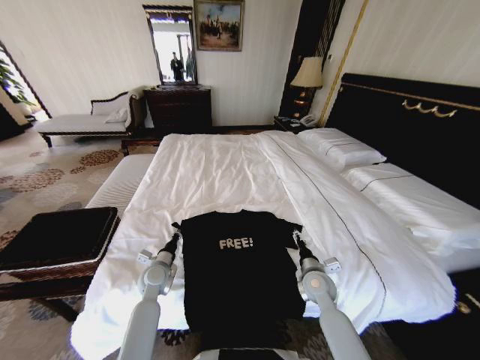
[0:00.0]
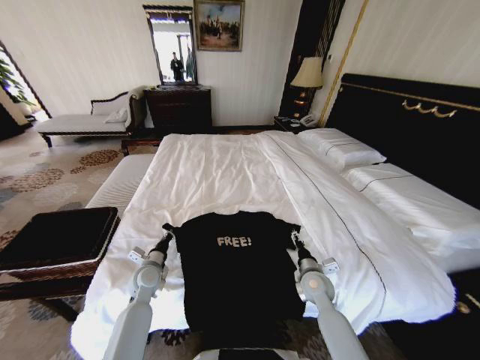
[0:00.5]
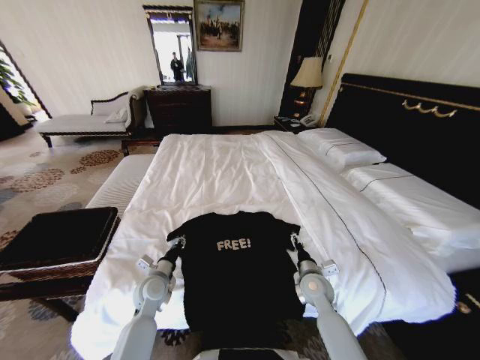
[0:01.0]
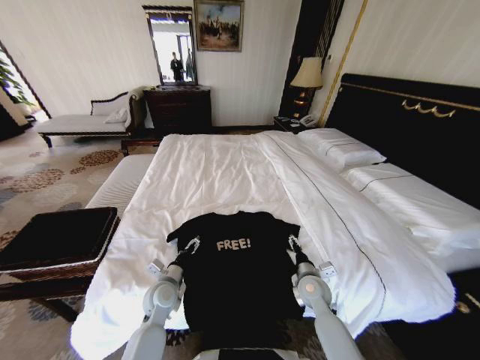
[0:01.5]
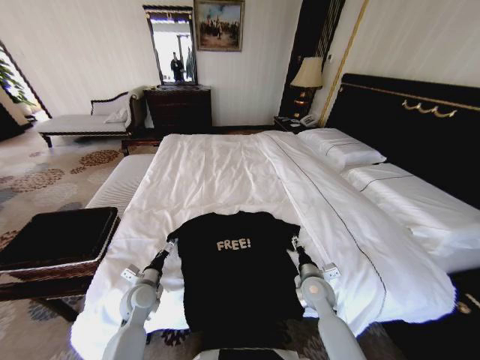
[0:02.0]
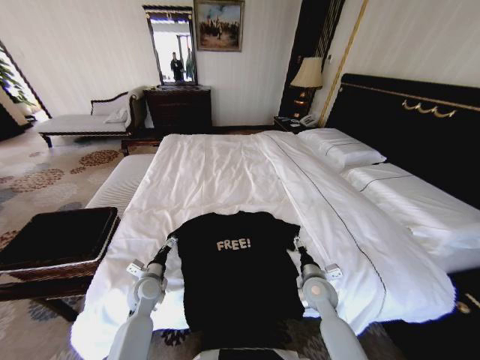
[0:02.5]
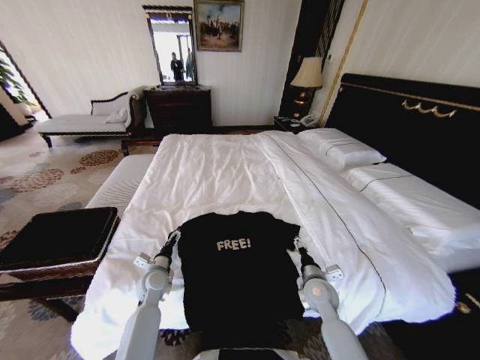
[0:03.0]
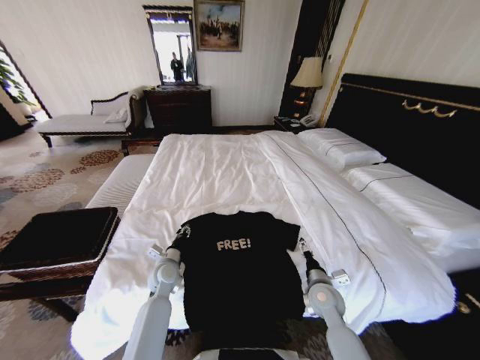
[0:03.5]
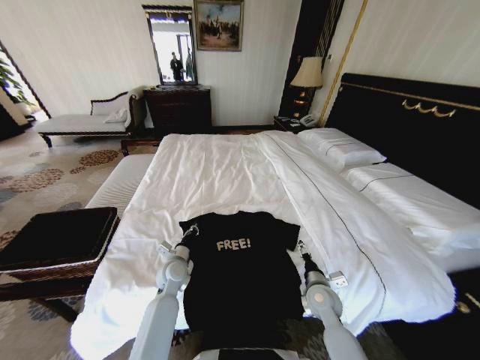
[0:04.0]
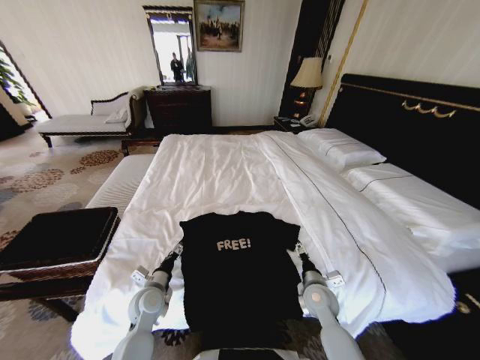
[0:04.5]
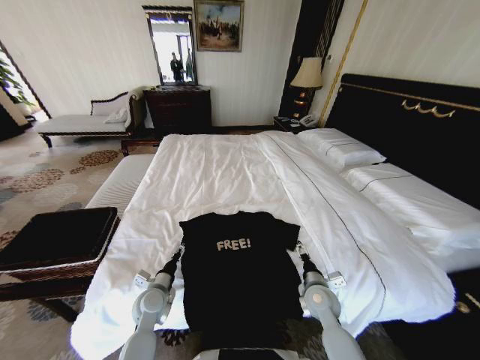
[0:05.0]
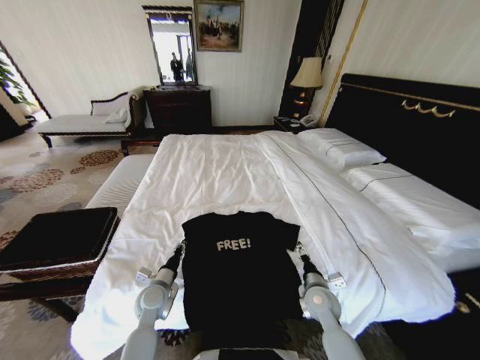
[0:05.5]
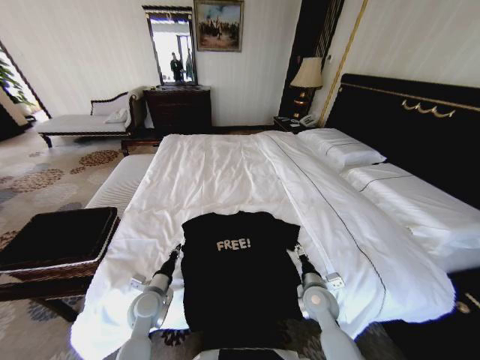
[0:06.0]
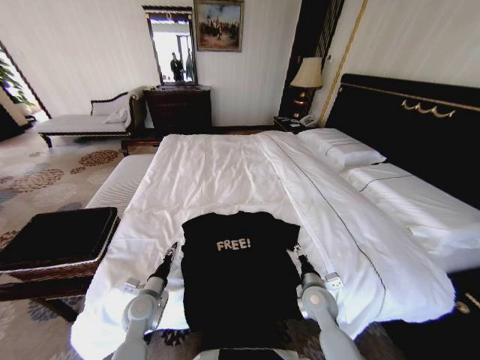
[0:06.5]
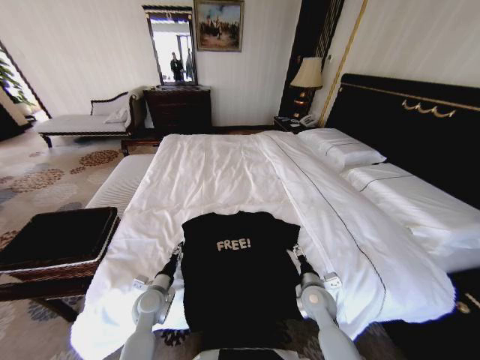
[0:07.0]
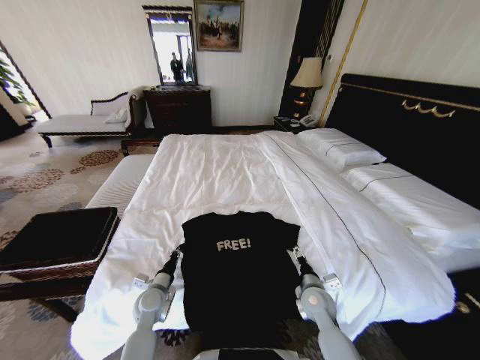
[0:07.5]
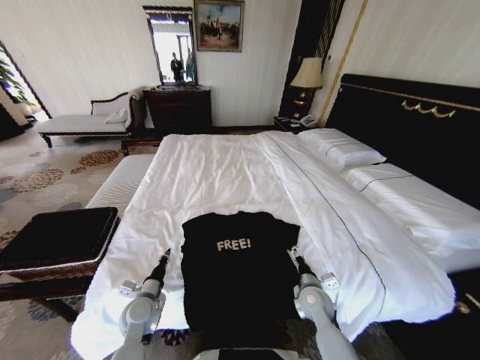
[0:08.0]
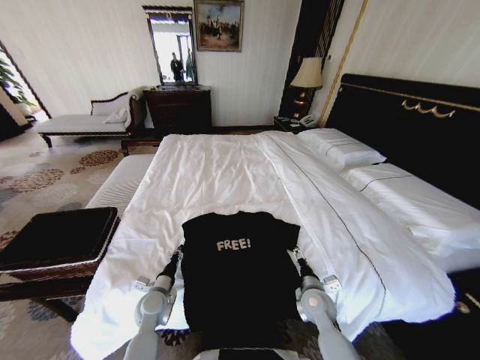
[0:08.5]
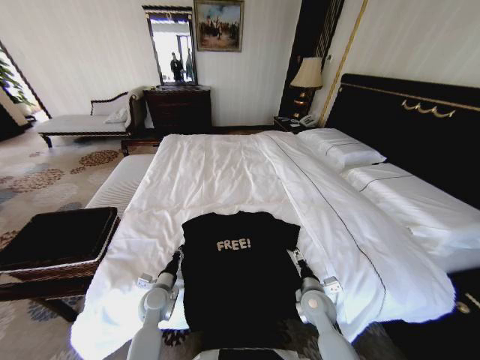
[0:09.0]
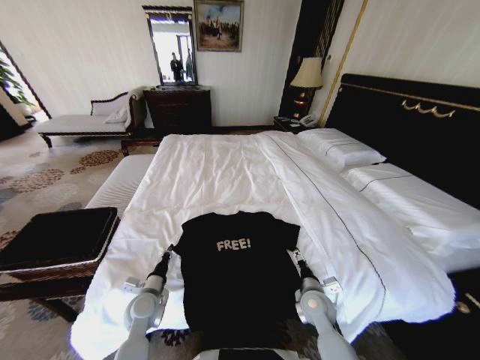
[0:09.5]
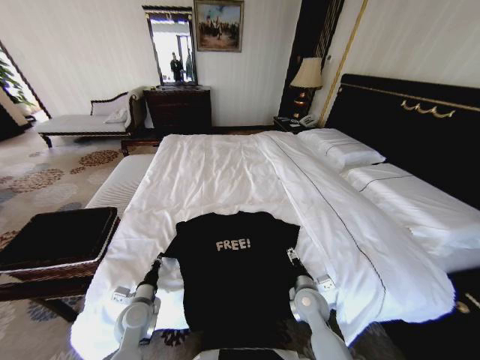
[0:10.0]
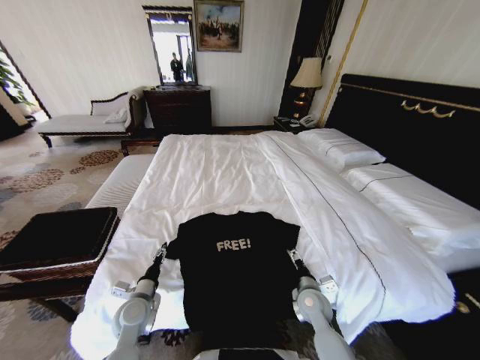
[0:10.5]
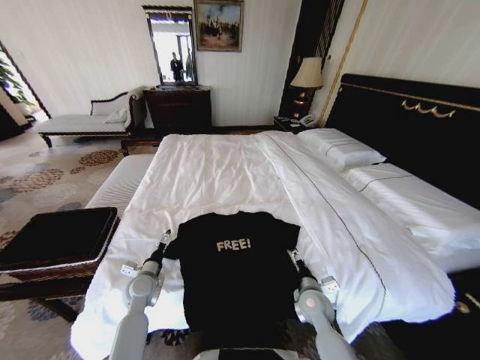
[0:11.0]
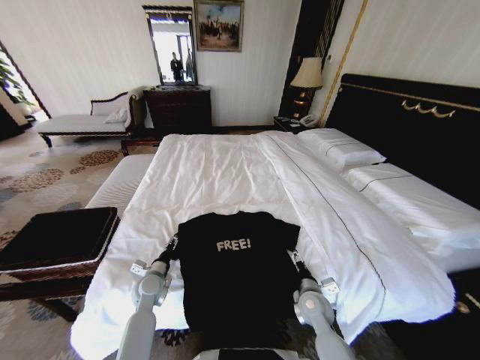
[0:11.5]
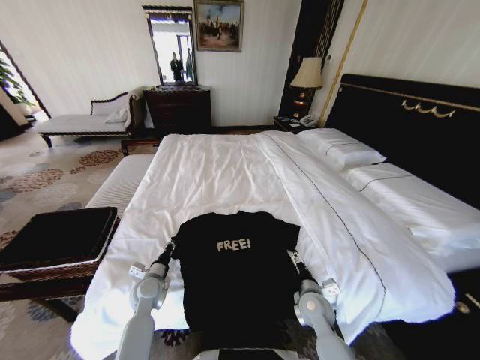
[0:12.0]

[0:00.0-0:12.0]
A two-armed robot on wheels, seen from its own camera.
Task of the whole recording: Fold the clothes on the bed and place them into the basket.
0:00.0 to 0:02.0: The left gripper is displaced backward by some 5 cm, and opens up.
0:02.0 to 0:04.0: The left gripper travels to the right and forward by approximately 10 cm, and closes.
0:04.0 to 0:06.0: The left gripper shifts about 10 cm backward and to the left, and opens, then closes once more.
0:06.0 to 0:08.0: The left gripper opens, then closes again.
0:08.0 to 0:10.0: There are only small adjustments of the grippers.
0:10.0 to 0:12.0: The left gripper travels forward by about 5 cm, and opens, then closes once more.

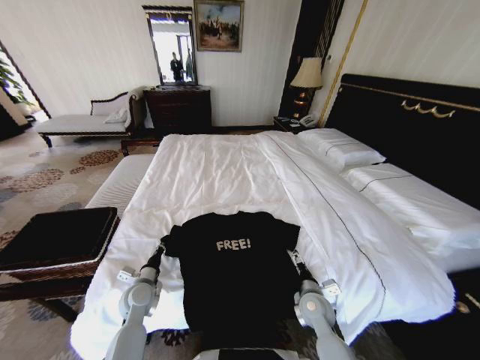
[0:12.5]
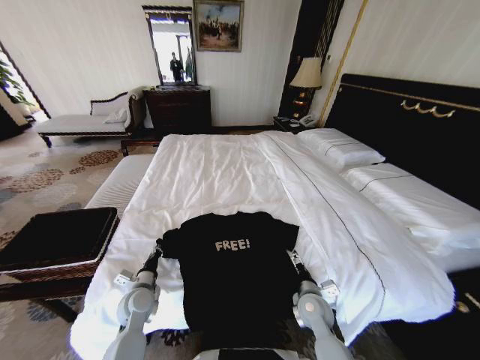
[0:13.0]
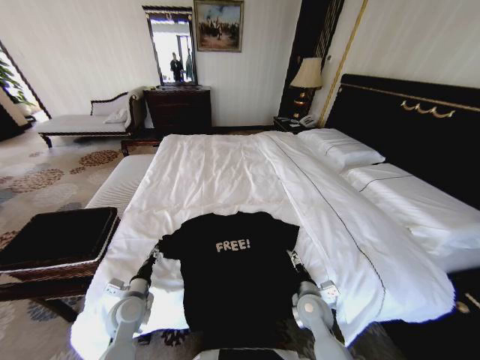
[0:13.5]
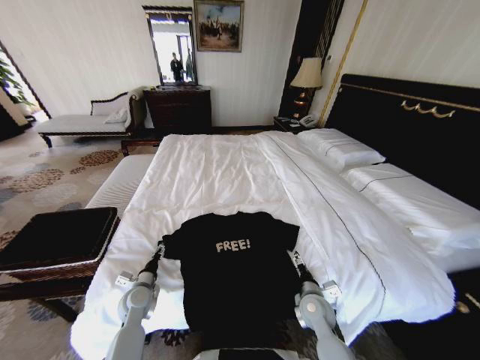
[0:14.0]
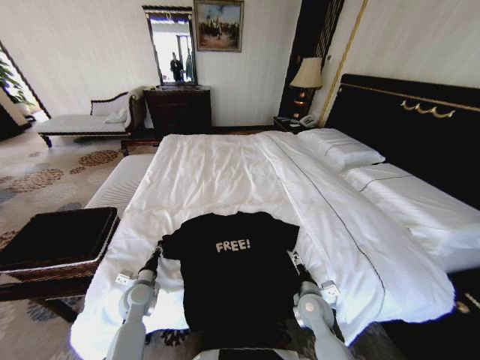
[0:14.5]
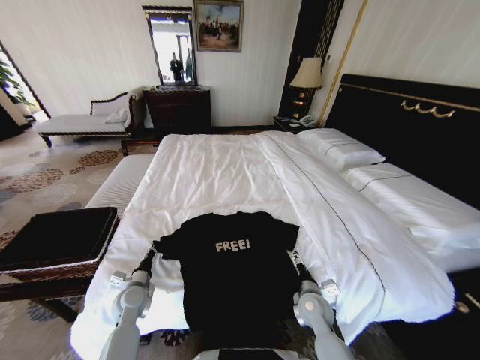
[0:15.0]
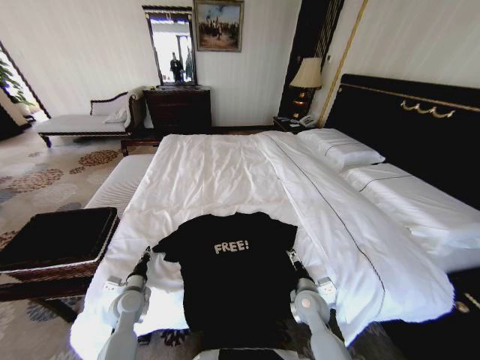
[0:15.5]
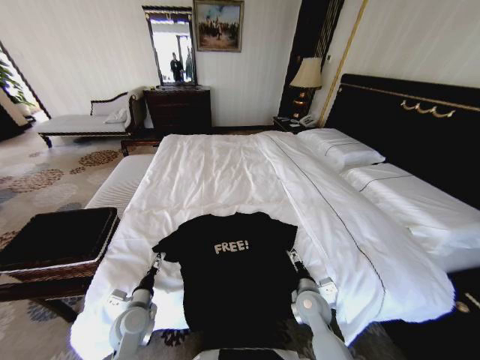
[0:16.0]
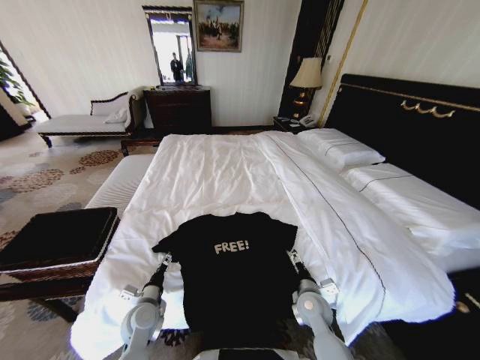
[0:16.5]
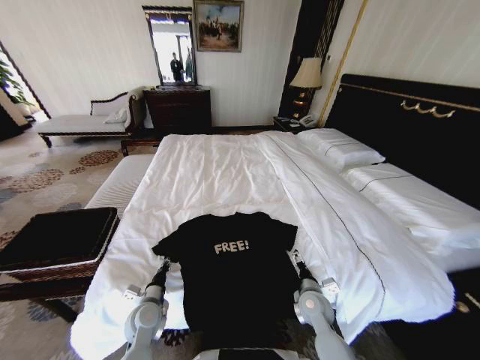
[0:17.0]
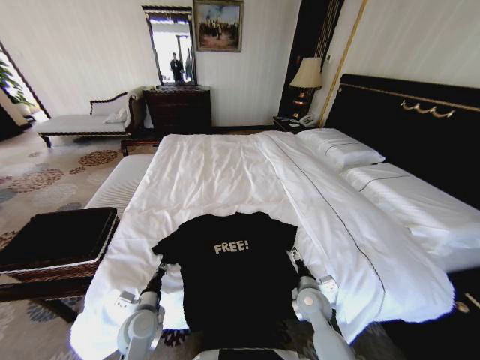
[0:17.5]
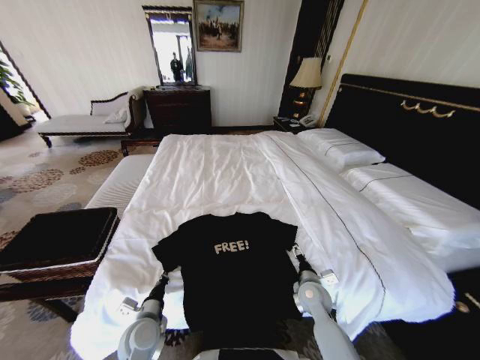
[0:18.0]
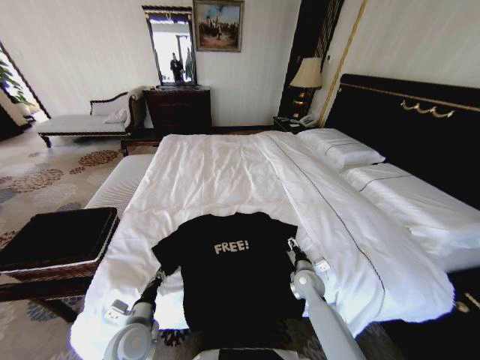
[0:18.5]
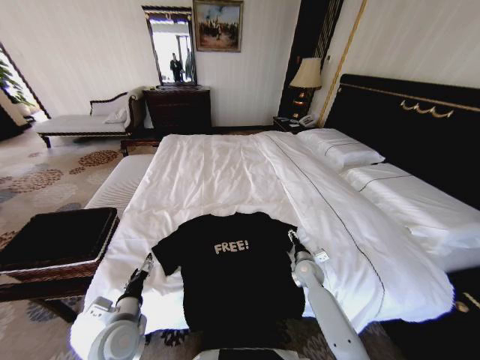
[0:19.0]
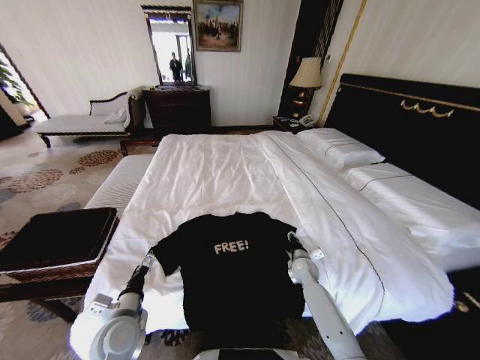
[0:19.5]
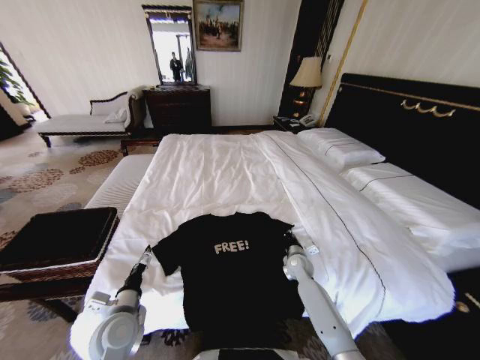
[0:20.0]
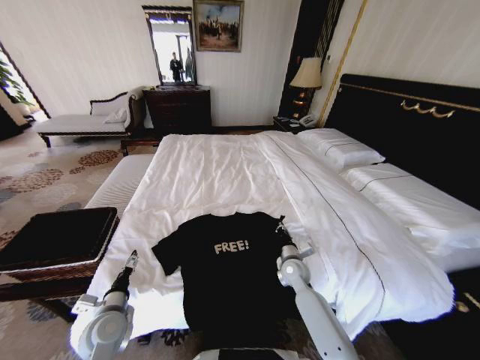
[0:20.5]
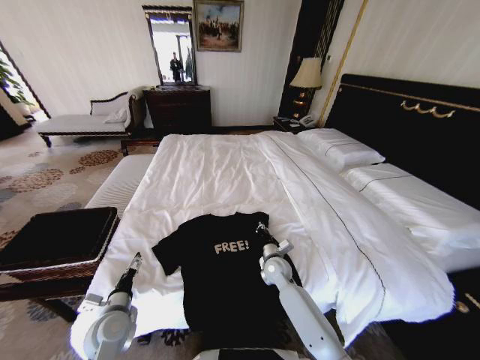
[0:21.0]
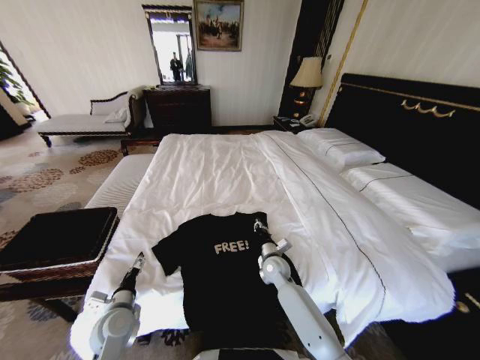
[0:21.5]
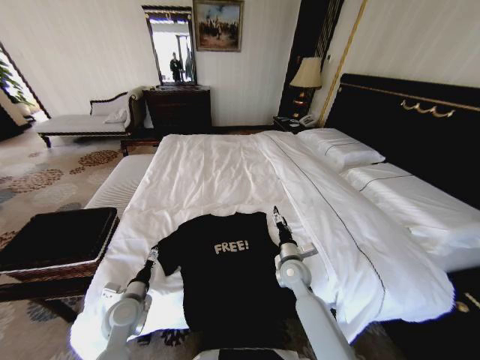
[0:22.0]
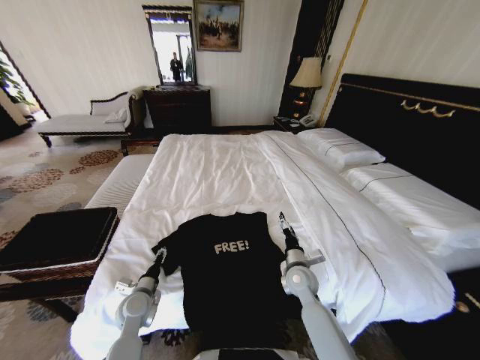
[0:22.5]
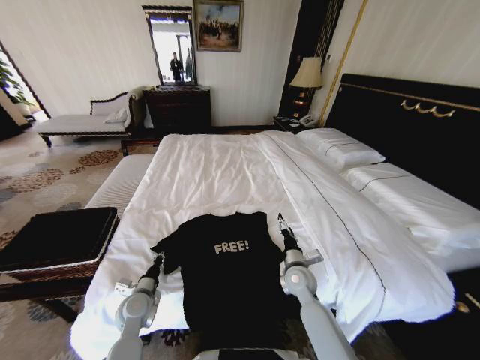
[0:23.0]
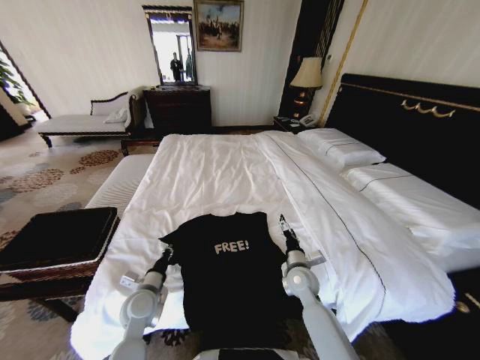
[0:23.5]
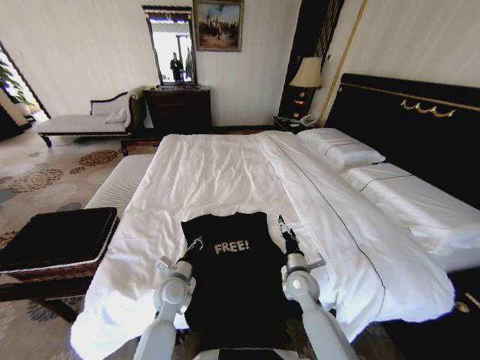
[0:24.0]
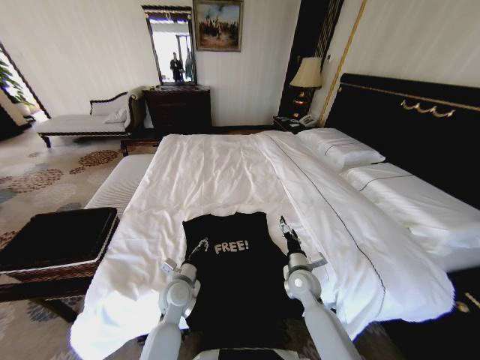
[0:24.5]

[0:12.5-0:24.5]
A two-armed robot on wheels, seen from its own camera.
Task of the whole recording: Fold the clothes on the bed and place them into the basket.
0:12.5 to 0:14.5: The left gripper opens, then closes once more.
0:14.5 to 0:16.5: The left gripper shifts some 5 cm backward, and opens.
0:16.5 to 0:18.5: The left gripper moves backward, roughly 5 cm, and closes its fingers. Meanwhile the right gripper shifts about 5 cm forward.
0:18.5 to 0:20.5: The right gripper ends up some 5 cm from where it was, and closes up; the left gripper heads to the left, covering approximately 5 cm, and opens up.
0:20.5 to 0:22.5: The left gripper moves forward, about 5 cm. The right gripper moves approximately 5 cm, and opens its fingers.
0:22.5 to 0:24.5: The left gripper shifts about 10 cm to the right, and closes its fingers.

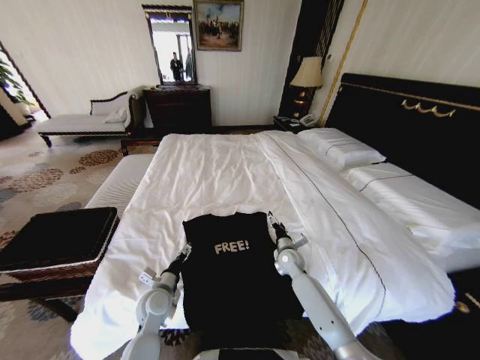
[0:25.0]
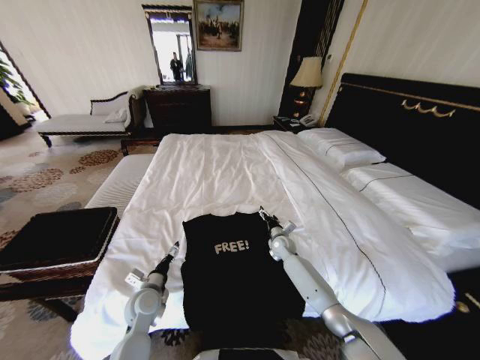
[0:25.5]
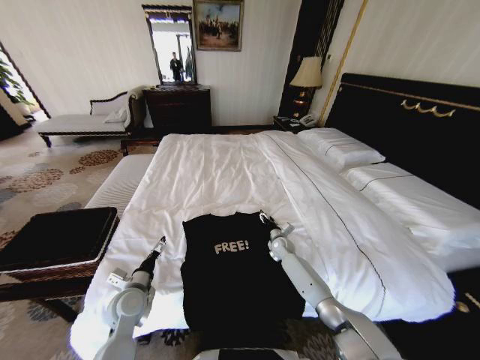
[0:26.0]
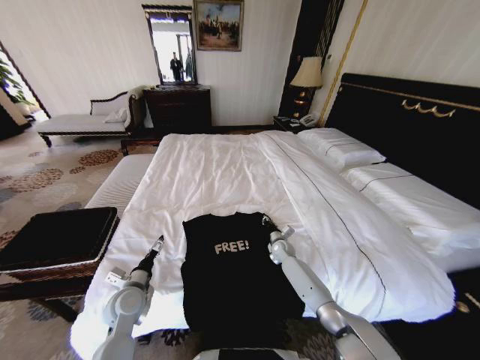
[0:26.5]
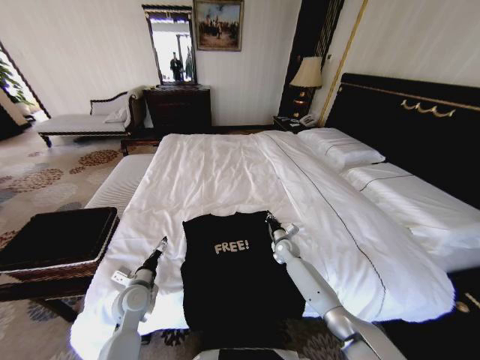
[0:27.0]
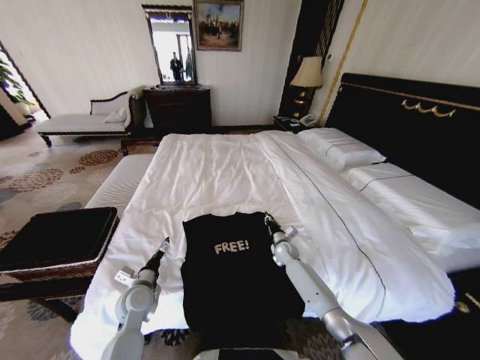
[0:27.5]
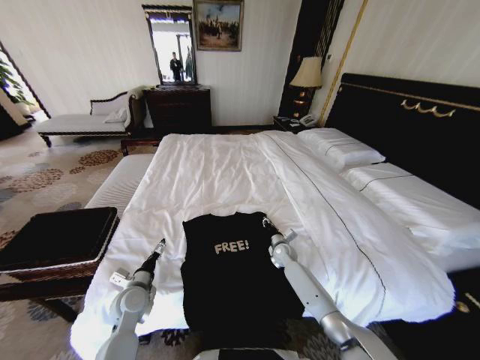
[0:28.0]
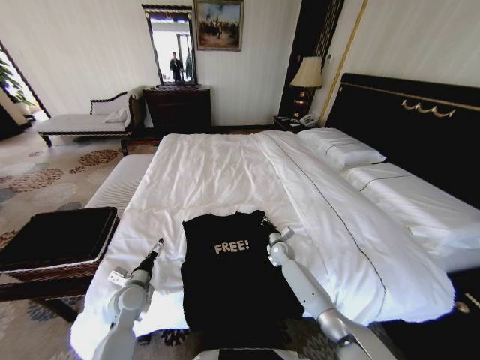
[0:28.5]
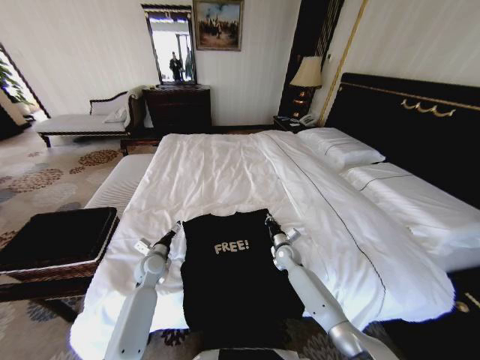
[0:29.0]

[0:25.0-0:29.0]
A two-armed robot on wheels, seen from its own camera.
Task of the whole recording: Fold the clothes on the bed and place them into the basket.
0:25.0 to 0:27.0: The left gripper is displaced to the left by roughly 5 cm. Meanwhile the right gripper is displaced forward by about 5 cm, and closes its fingers.
0:27.0 to 0:29.0: The right gripper opens and closes again, while the left gripper moves forward, about 10 cm.
